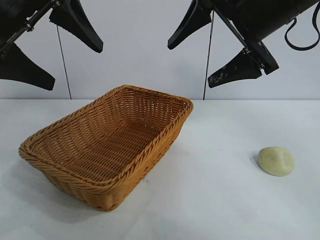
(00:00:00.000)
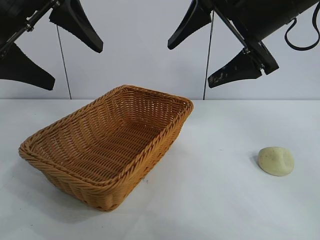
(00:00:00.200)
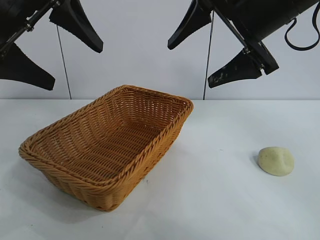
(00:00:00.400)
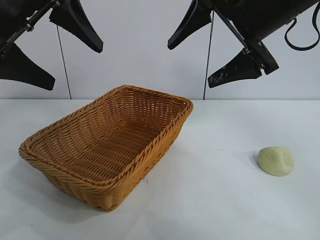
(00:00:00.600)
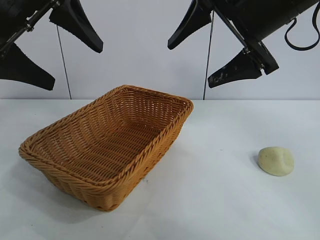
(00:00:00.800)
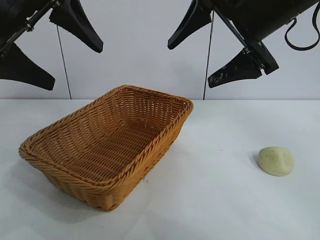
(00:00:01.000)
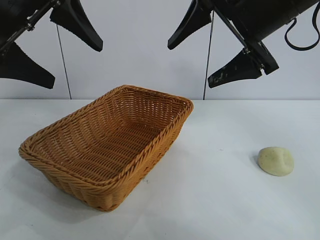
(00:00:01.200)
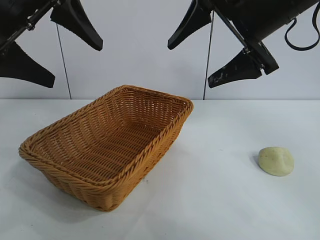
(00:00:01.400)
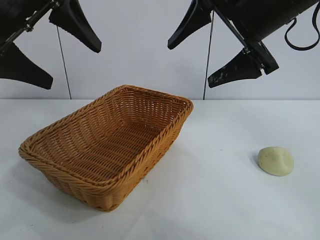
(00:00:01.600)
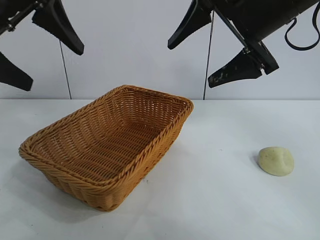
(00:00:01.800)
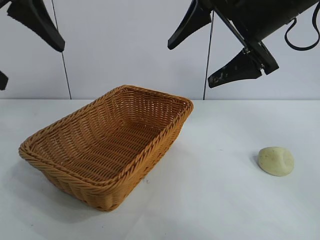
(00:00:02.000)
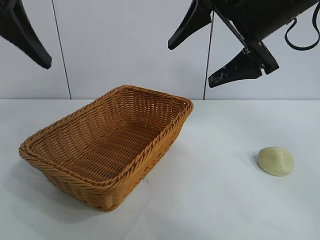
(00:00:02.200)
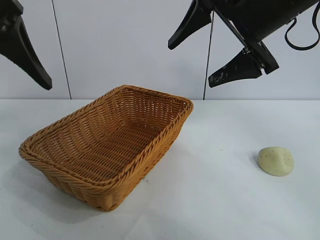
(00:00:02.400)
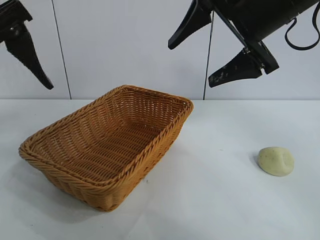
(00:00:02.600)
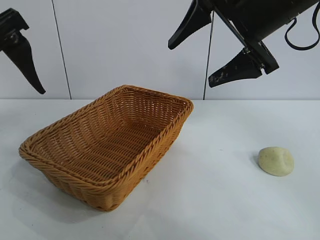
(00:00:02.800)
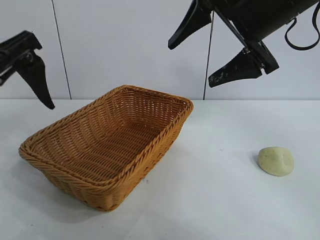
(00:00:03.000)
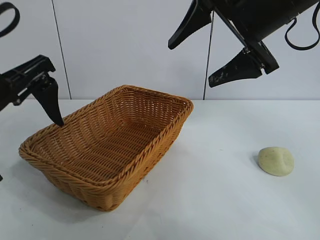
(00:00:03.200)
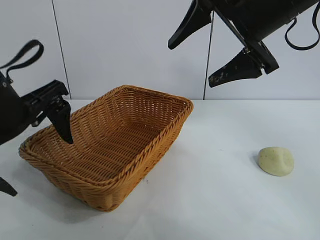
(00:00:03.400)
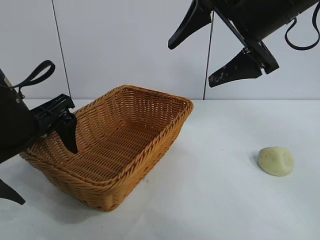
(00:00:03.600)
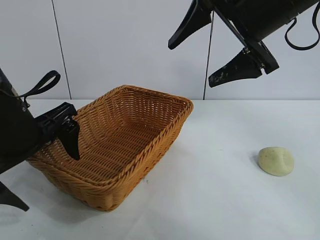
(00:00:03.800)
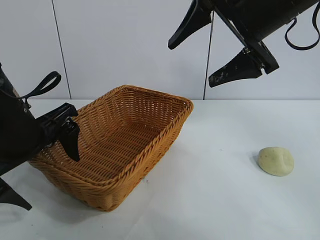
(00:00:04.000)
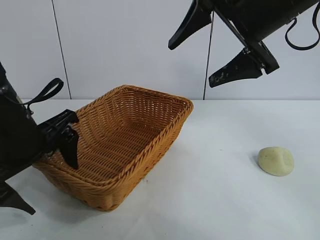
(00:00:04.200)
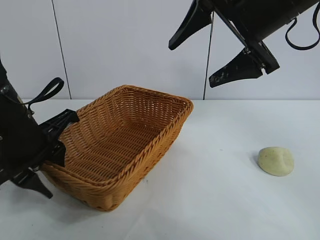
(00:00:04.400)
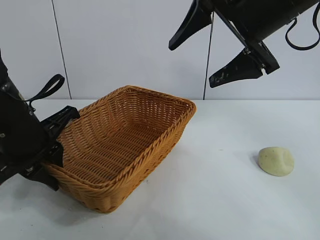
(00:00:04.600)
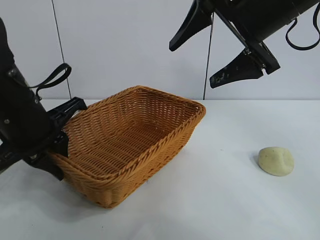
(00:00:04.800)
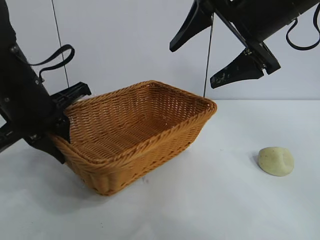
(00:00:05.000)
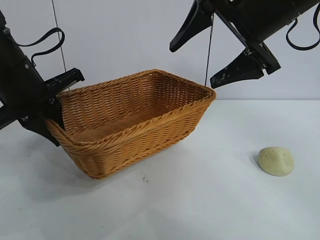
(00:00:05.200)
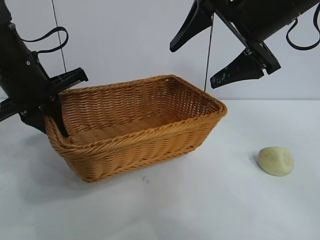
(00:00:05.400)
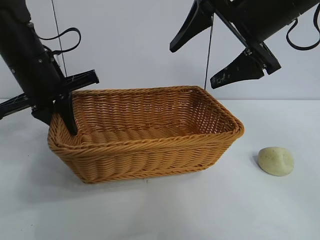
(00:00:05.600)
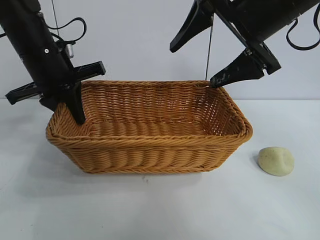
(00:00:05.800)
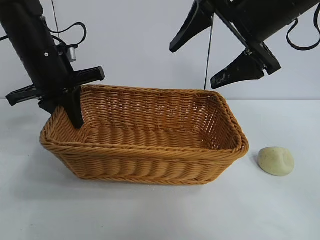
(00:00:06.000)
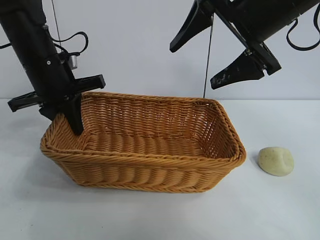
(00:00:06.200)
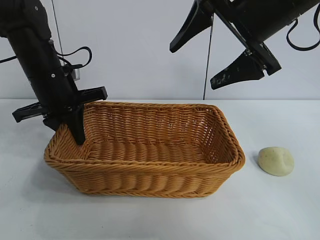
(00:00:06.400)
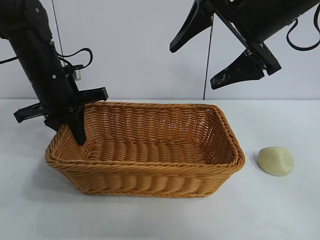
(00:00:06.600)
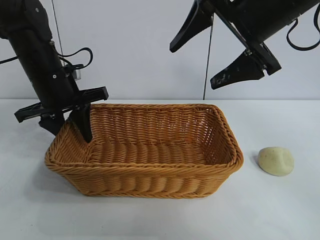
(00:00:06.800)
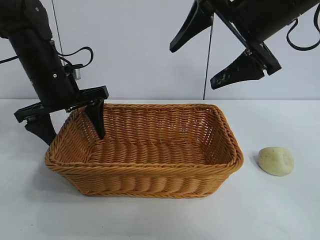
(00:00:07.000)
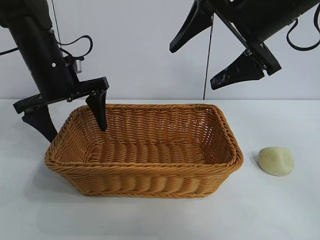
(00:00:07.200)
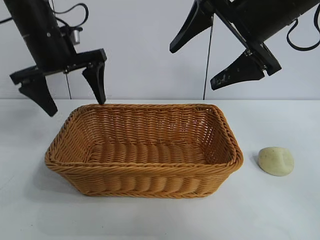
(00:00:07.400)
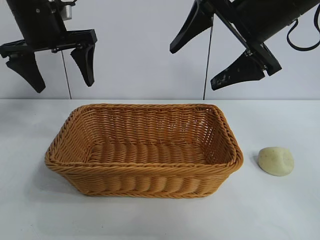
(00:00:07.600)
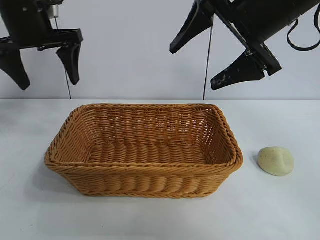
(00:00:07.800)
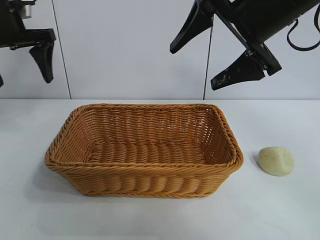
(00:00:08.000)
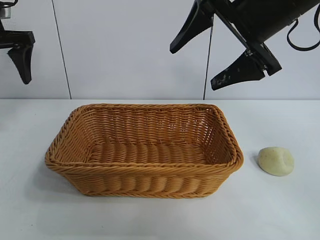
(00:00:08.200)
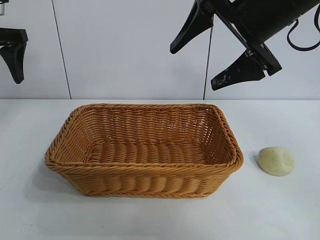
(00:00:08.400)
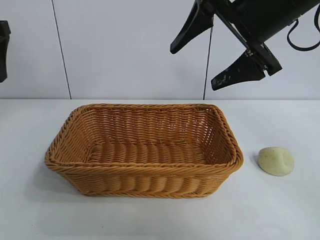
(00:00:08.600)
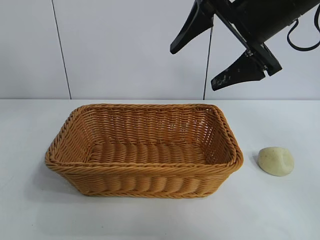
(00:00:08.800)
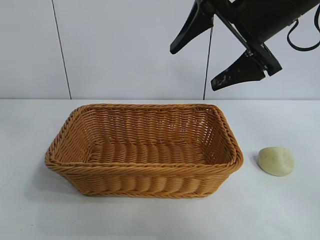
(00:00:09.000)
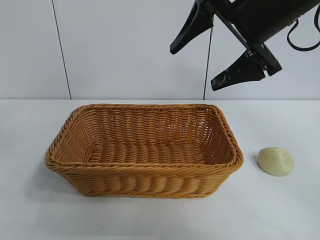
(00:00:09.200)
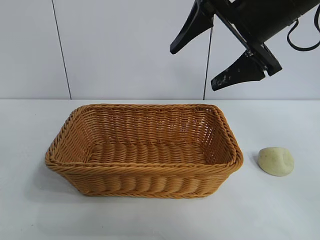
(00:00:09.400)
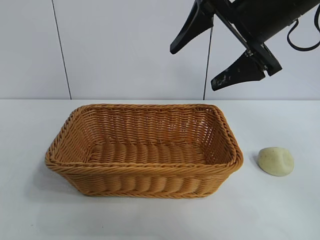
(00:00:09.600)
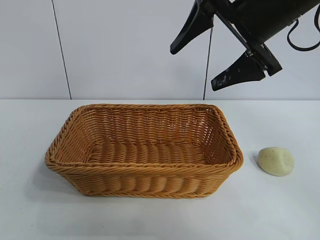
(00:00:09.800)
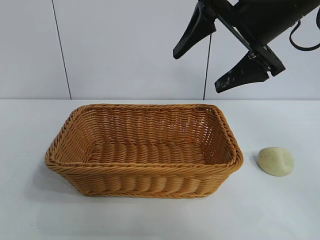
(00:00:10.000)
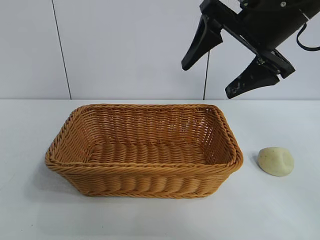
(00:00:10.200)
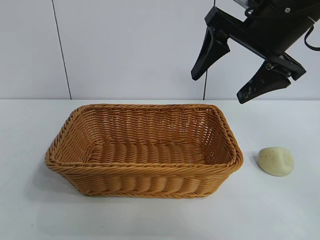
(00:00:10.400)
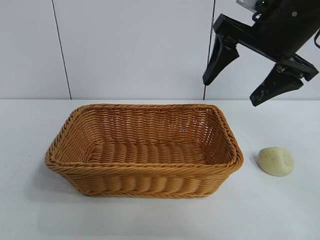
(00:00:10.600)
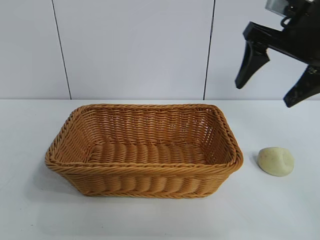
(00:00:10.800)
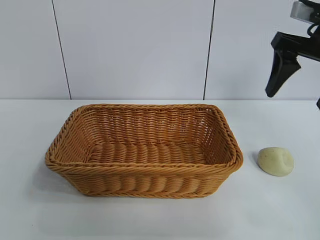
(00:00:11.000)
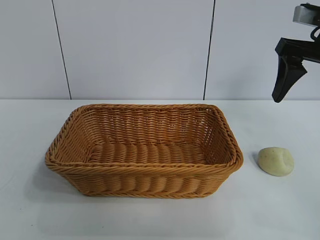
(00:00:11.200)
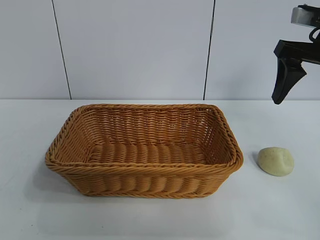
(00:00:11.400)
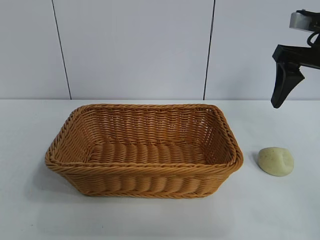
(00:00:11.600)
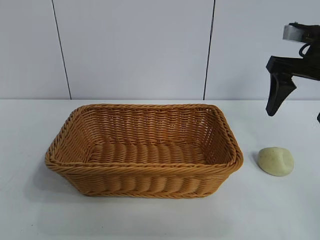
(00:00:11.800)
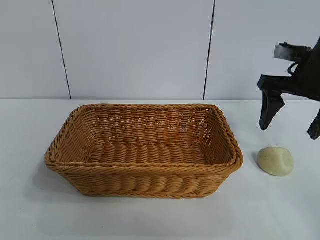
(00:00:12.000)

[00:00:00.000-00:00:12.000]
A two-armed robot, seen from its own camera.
Task of the whole recording: pick up the egg yolk pastry and put it into the basket.
Step, 00:00:01.200 to 00:00:04.400: Grasp the basket with left gripper.
Step, 00:00:04.800 to 00:00:06.800: Place the basket in the center of view with left gripper.

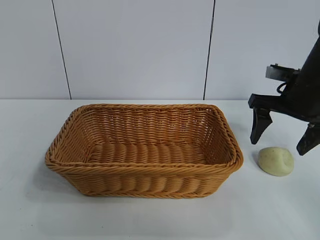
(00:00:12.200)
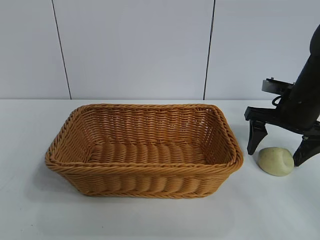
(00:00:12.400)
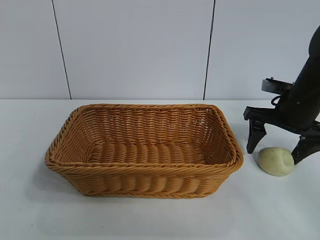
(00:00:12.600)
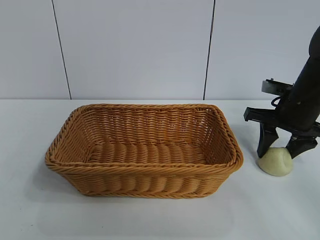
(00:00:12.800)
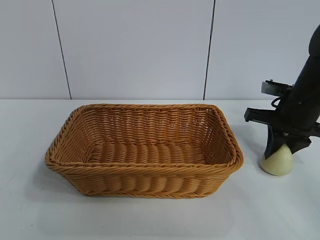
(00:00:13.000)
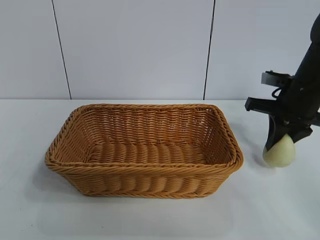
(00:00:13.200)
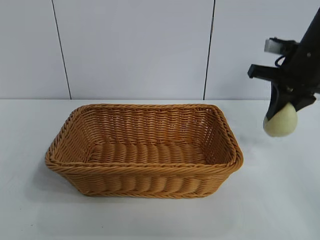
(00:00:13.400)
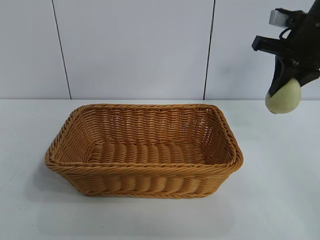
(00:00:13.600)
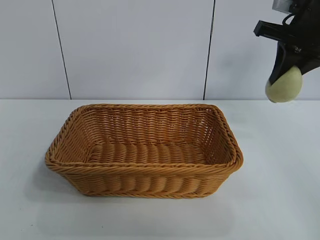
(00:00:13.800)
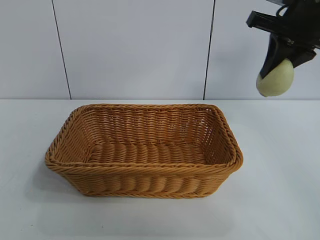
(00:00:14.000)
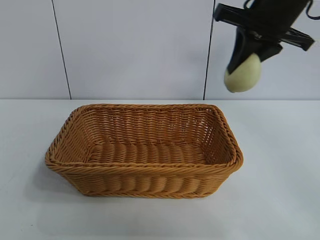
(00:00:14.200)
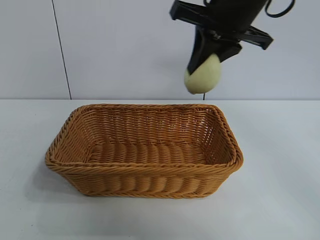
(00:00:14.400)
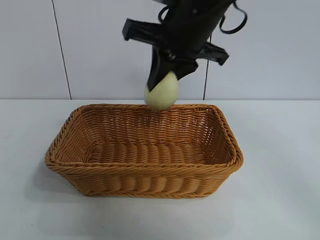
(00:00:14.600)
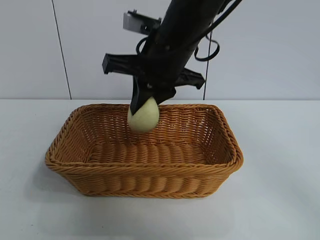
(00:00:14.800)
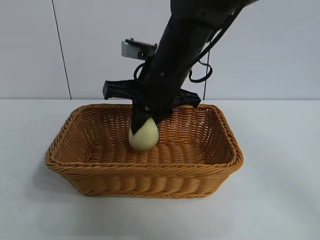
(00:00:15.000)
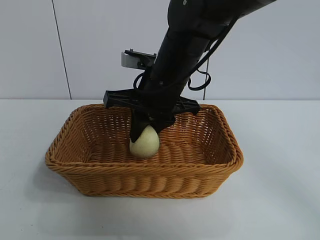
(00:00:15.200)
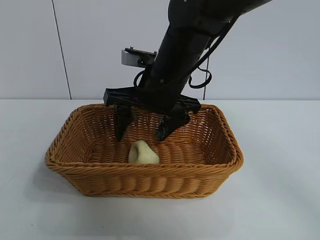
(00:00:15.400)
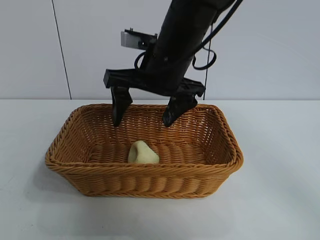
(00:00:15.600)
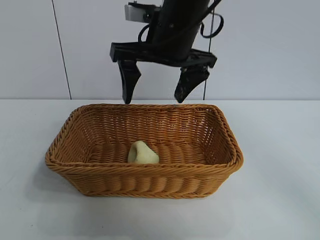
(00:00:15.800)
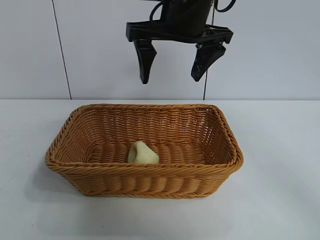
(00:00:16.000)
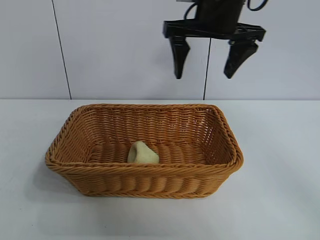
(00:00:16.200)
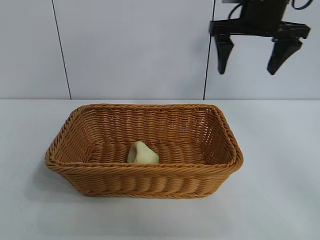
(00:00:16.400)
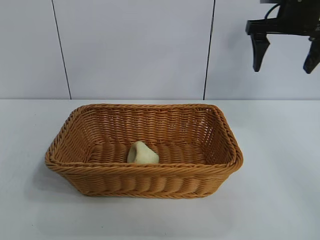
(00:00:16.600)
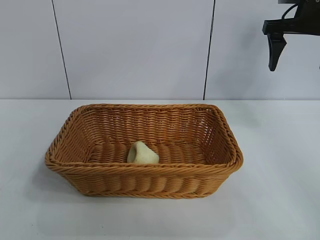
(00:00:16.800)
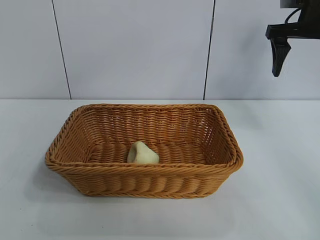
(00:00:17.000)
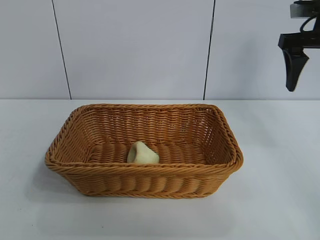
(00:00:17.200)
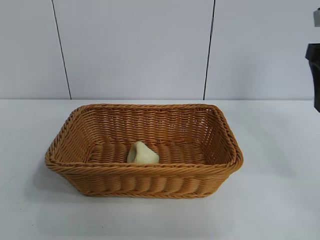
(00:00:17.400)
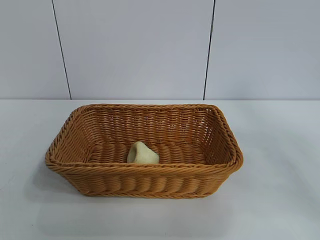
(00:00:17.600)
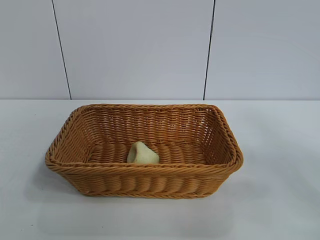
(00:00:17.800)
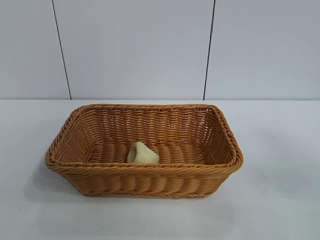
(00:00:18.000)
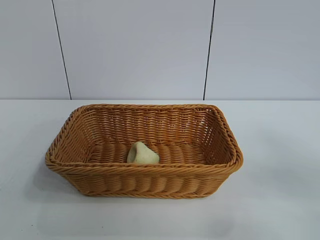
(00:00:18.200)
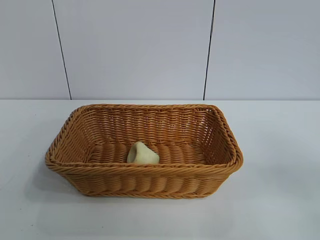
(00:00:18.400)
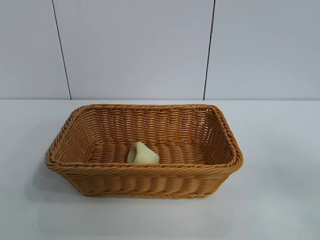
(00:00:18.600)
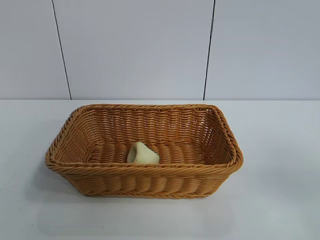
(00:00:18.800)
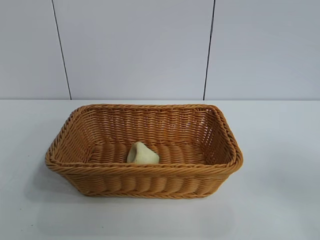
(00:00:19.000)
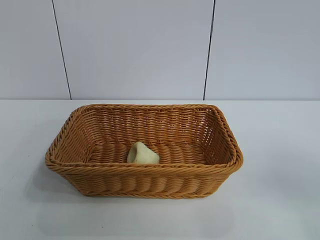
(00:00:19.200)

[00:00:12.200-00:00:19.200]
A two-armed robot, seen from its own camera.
Task of the whole recording: pick up the egg yolk pastry and put it into the basket.
Step, 00:00:13.200 to 00:00:15.400: Place the egg yolk pastry in the basket with right gripper.
